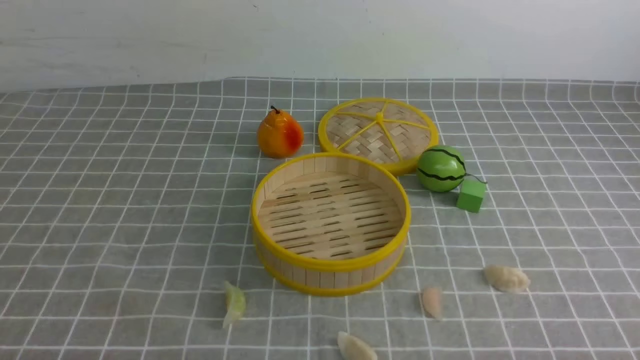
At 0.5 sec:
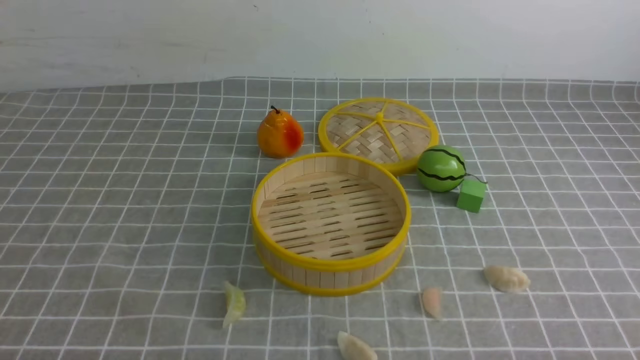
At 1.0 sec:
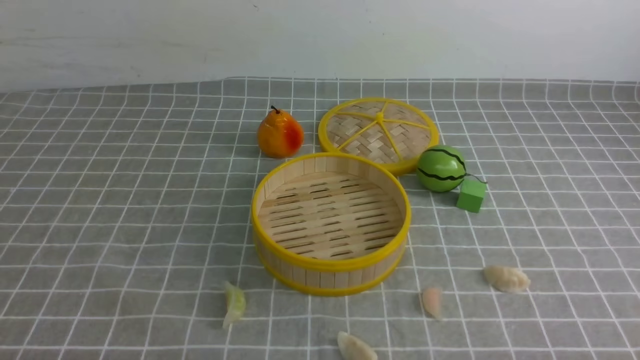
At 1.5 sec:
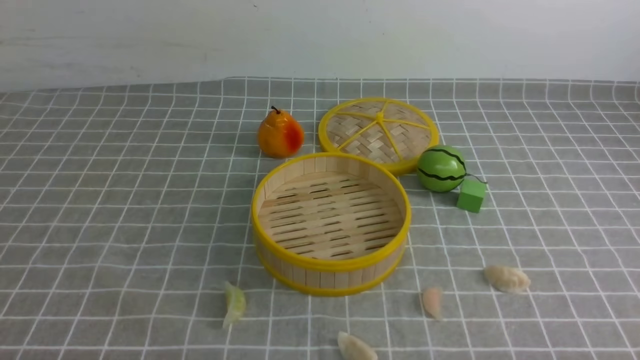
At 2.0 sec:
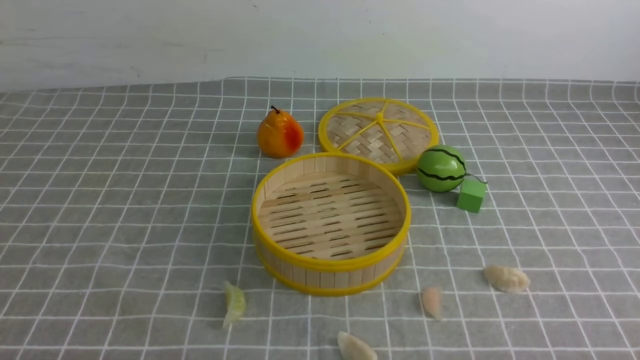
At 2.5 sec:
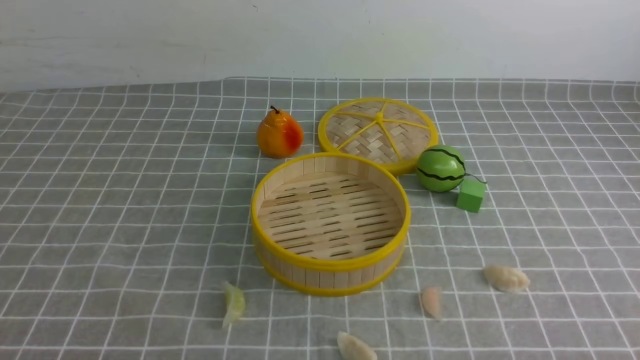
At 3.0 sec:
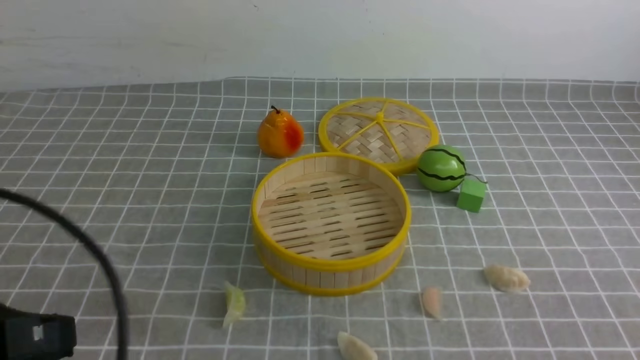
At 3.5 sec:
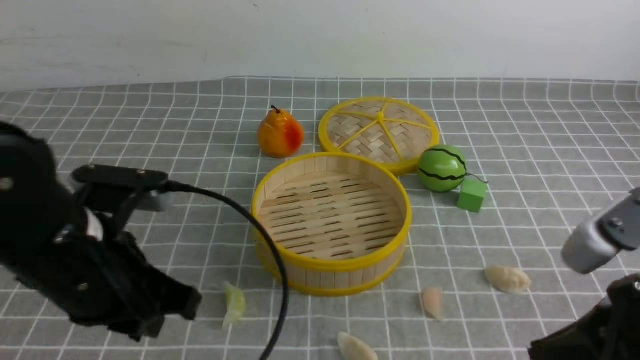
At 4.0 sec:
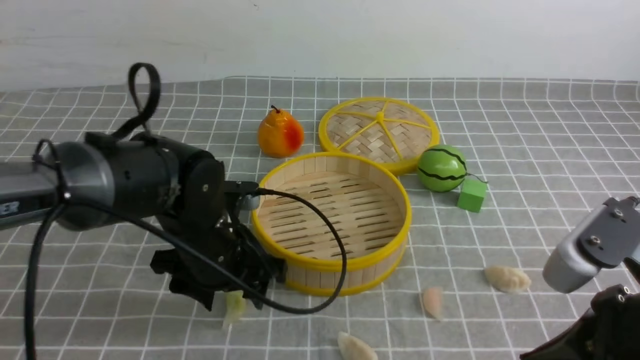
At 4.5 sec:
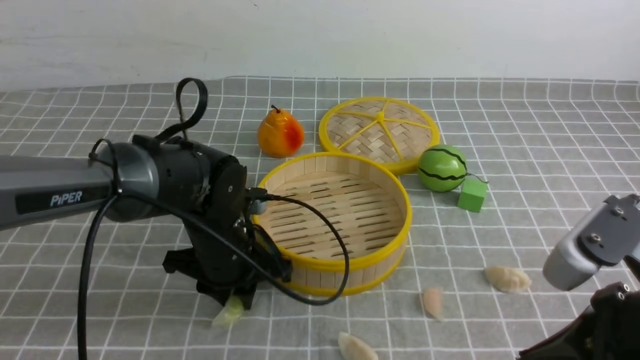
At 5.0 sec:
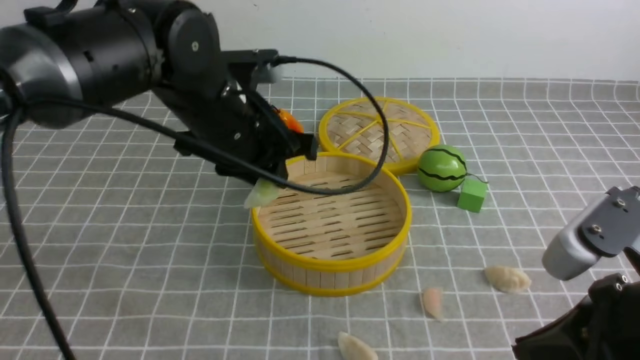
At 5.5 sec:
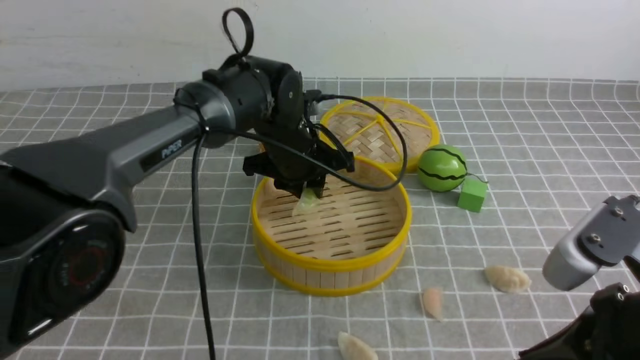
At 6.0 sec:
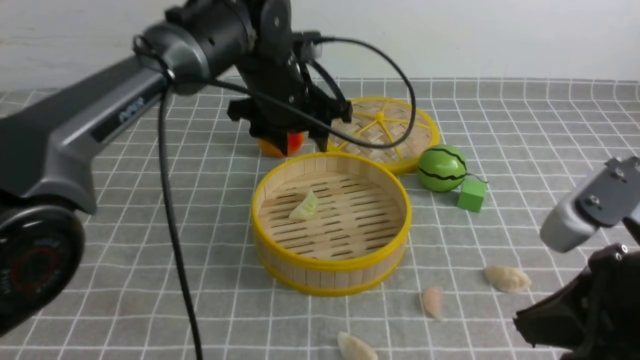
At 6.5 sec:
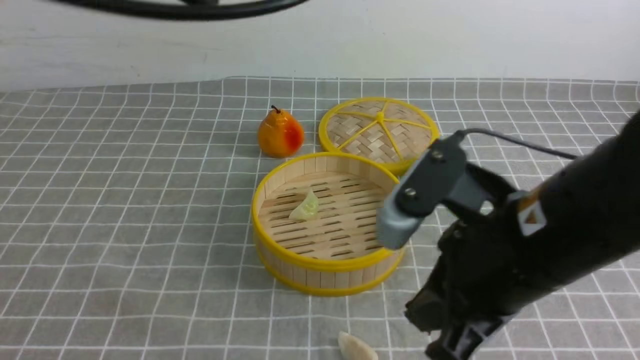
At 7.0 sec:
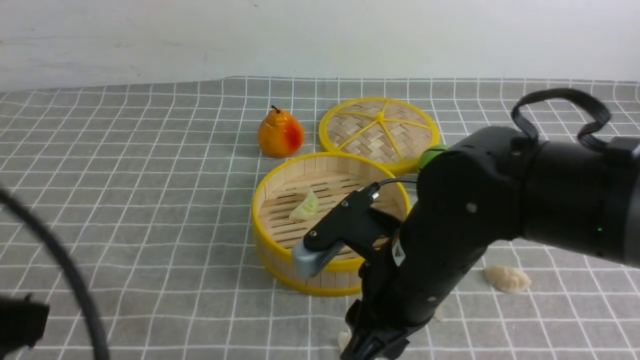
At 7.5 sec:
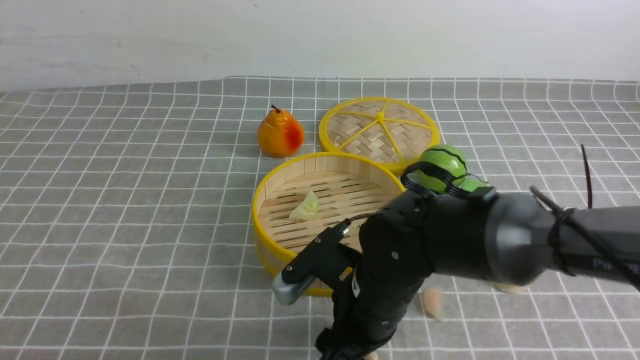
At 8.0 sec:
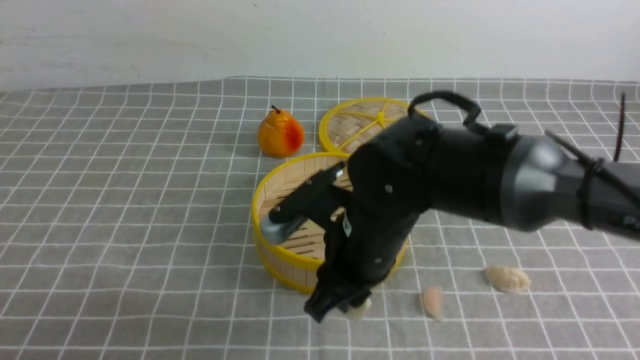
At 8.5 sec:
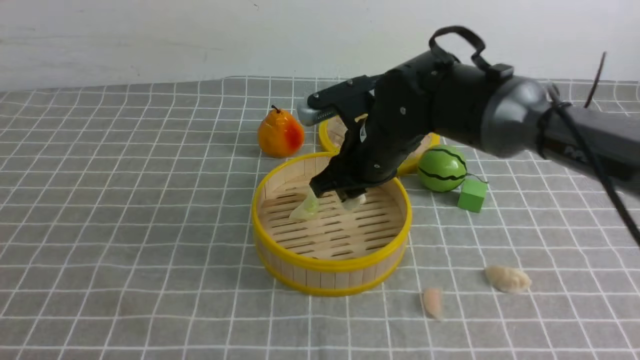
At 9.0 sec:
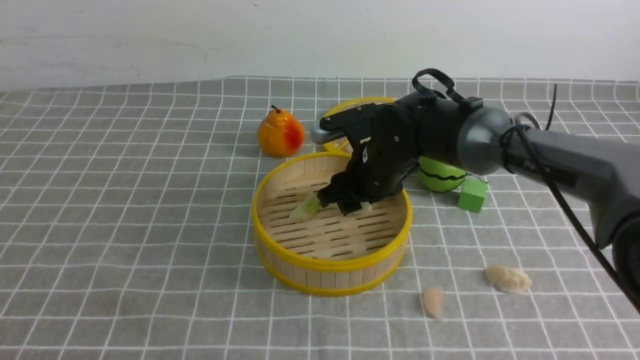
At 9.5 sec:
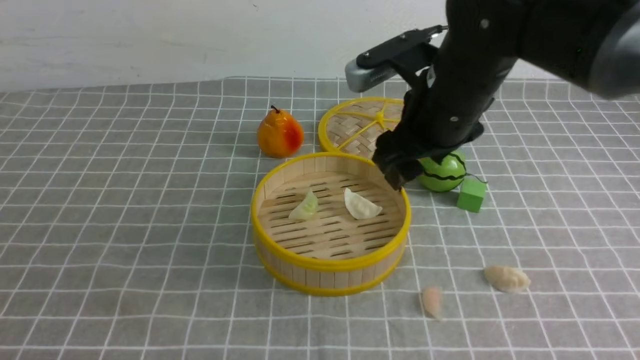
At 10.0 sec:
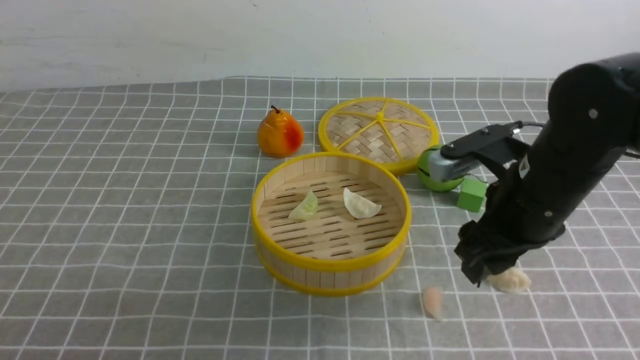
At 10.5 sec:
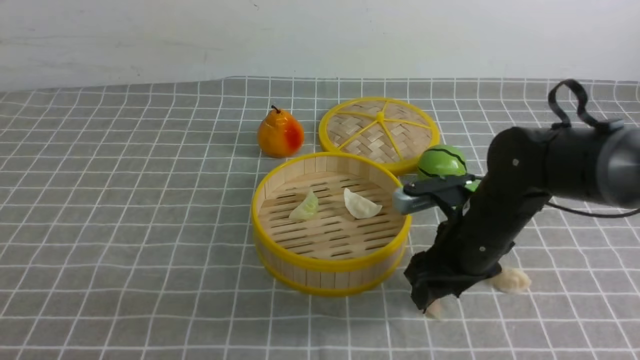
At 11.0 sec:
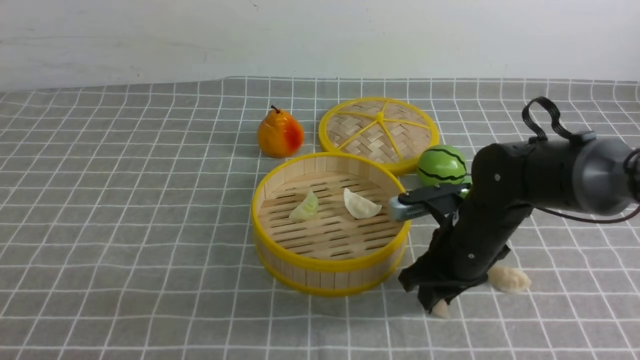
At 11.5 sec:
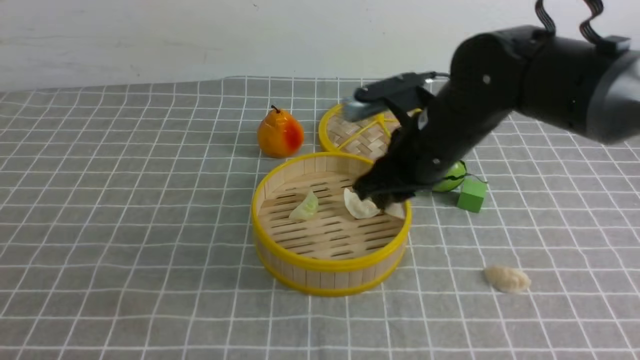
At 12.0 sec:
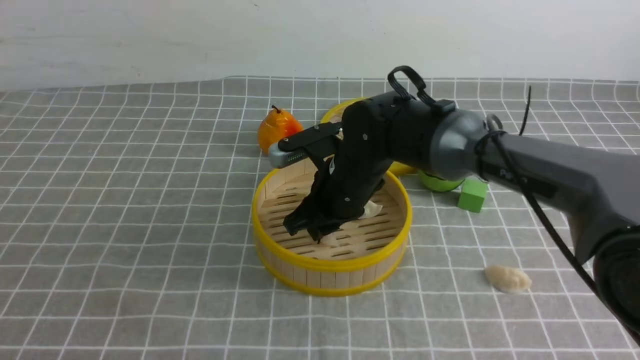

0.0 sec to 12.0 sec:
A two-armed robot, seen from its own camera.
Task of the whole recording: put the dumplings into the steamer on the table with the grey tablecloth.
Step, 0.0 sec to 4.5 sec: use the left arm to grab a dumpling.
Step, 5.0 sec to 5.5 sec: use the left arm to put the dumpling into the steamer.
Step, 6.0 sec to 7.5 sec: use the right arm to grab a dumpling.
Step, 8.0 sec to 9.0 sec: use the right arm to put the dumpling into the steamer.
Step, 9.5 sec to 11.0 sec: use the right arm to grab a dumpling.
2.0 sec to 4.0 sec: The right gripper goes approximately 15 cm upward, forward and to the left, and closes up; the left gripper goes some 30 cm forward and to the right, and opens.
4.0 sec to 6.0 sec: The left gripper swings up and down, roughly 15 cm each way, with 2 reversals, and closes, then reopens.
6.0 sec to 8.0 sec: The right gripper travels to the left, forward and downward by some 25 cm, and opens up. The left gripper moves backward and to the left, approximately 40 cm, and closes.
8.0 sec to 10.0 sec: The right gripper goes approximately 15 cm to the right, and opens its fingers.
10.0 sec to 12.0 sec: The right gripper moves to the left and forward, roughly 15 cm, and closes its fingers.

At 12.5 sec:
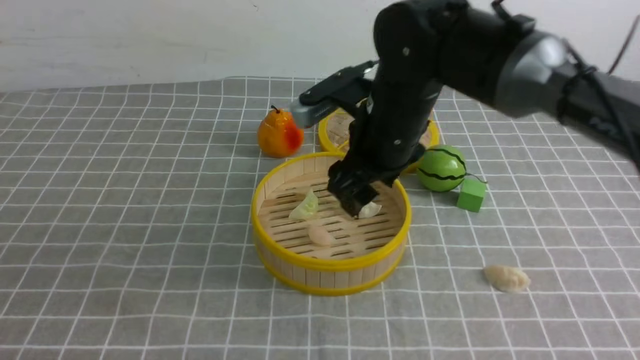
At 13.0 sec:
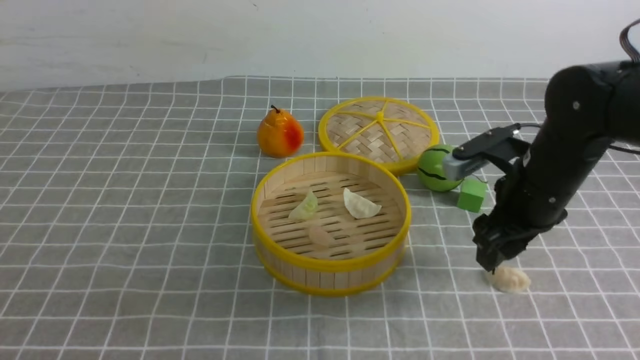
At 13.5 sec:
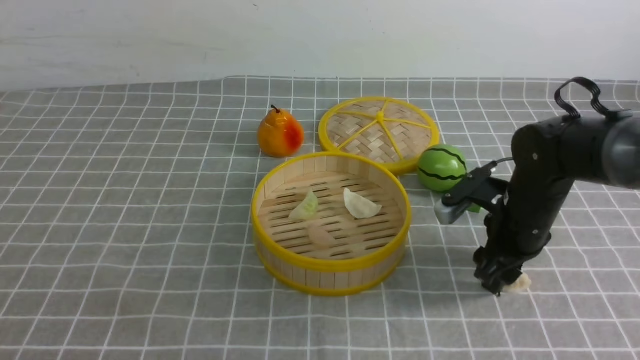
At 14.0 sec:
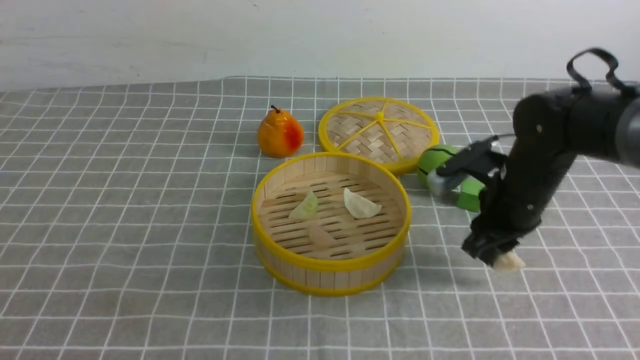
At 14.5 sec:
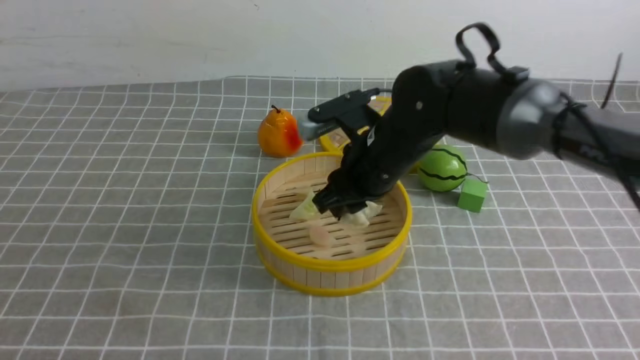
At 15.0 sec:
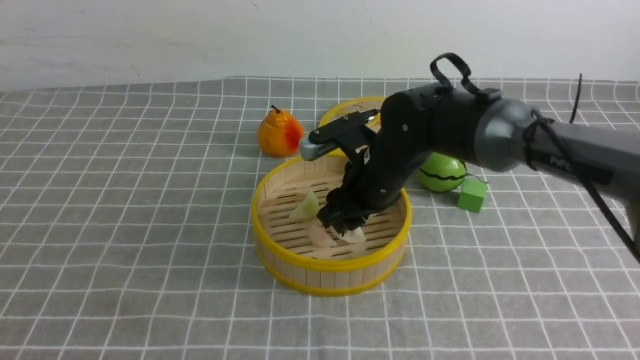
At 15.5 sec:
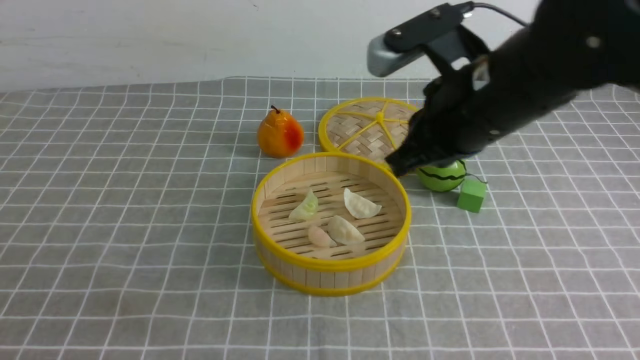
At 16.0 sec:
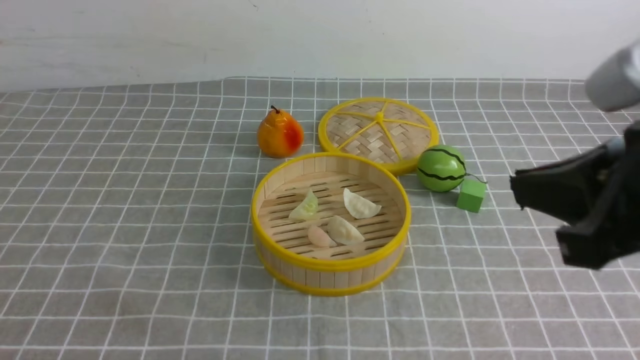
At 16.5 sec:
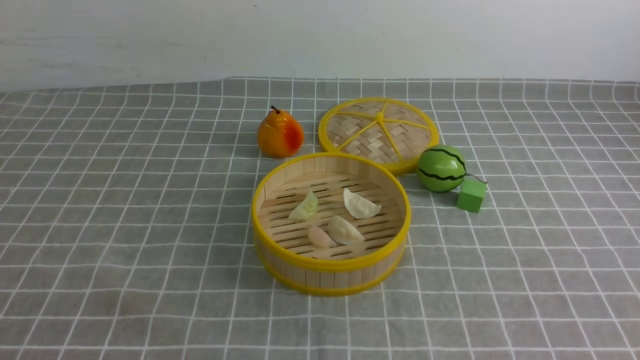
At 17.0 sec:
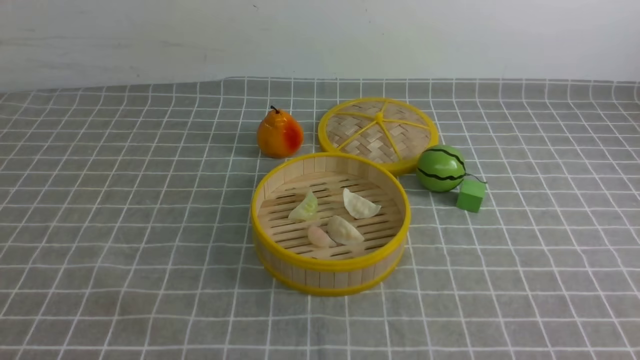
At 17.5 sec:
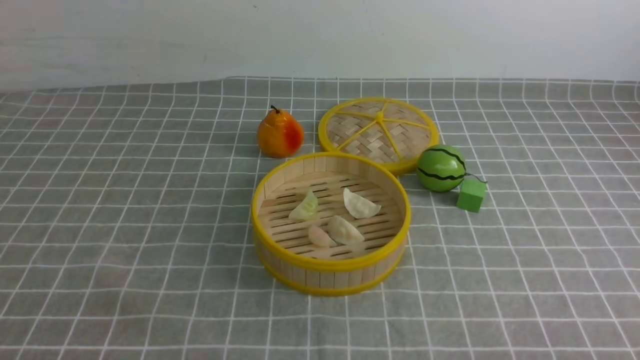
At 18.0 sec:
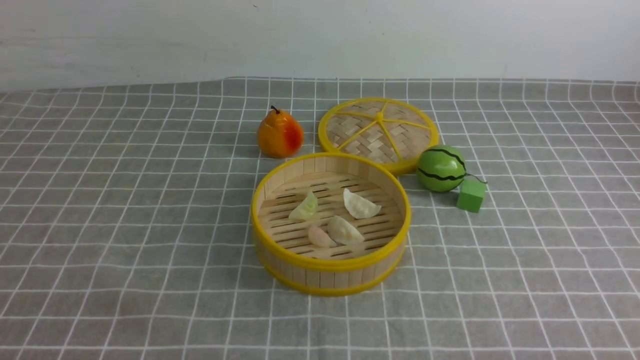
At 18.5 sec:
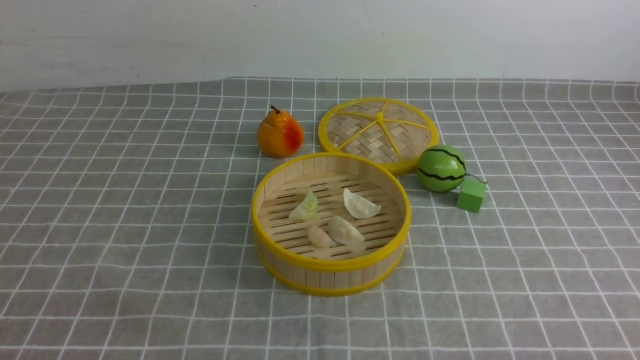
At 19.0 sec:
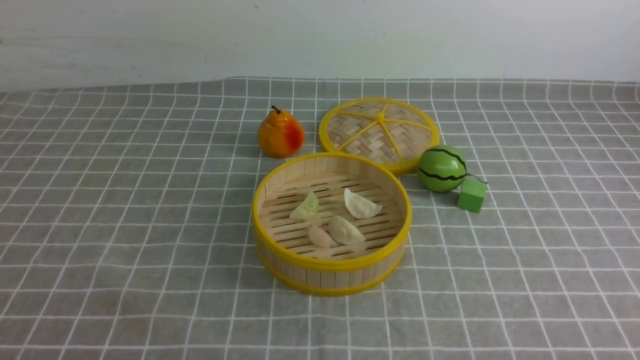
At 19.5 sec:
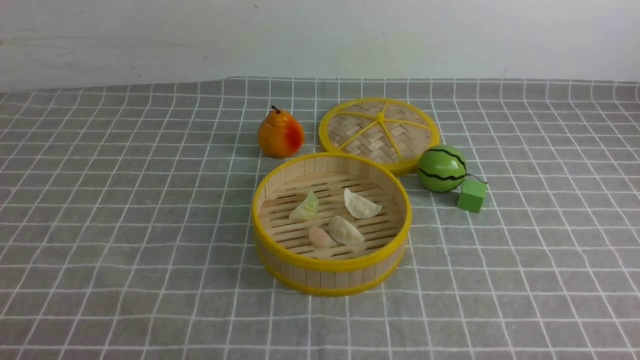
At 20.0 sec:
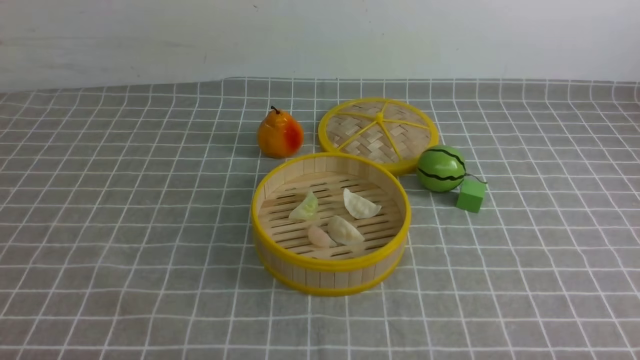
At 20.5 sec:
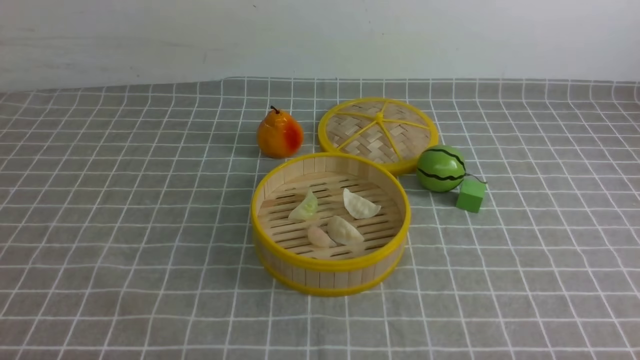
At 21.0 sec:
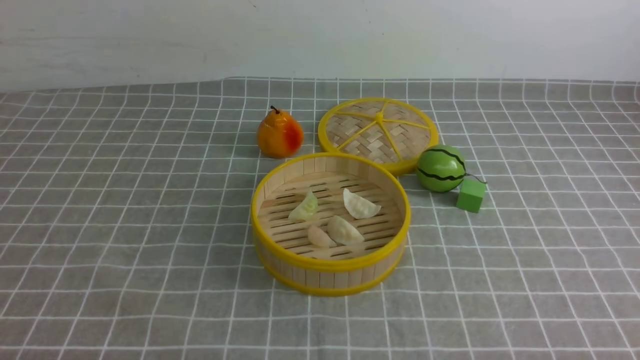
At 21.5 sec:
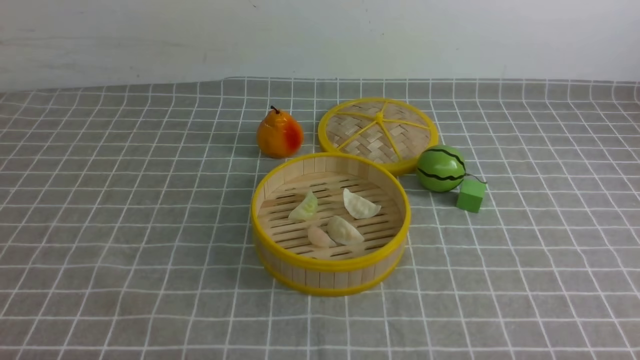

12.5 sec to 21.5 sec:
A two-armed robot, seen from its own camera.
Task of the whole recording: put the dumplings into the steamer on the table with the grey tablecloth.
Step, 12.5 sec to 13.5 sec: use the right arm to grab a dumpling.
Step, 14.0 sec to 15.0 sec: use the right arm to put the dumpling into the steamer.
12.5 sec to 14.5 sec: The right gripper reaches approximately 15 cm to the right, then returns, and closes.
14.5 sec to 17.0 sec: The right gripper heads backward and to the right, covering roughly 40 cm, and closes.
